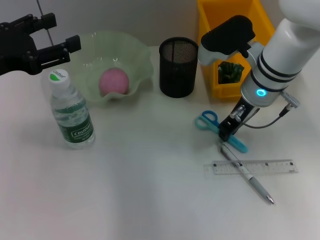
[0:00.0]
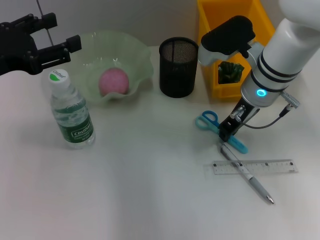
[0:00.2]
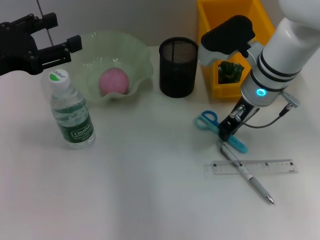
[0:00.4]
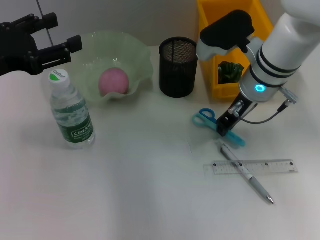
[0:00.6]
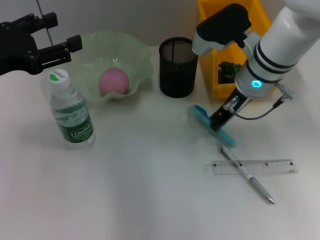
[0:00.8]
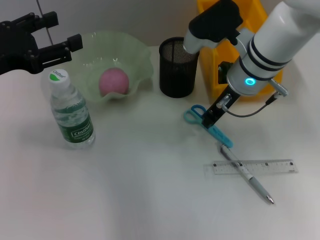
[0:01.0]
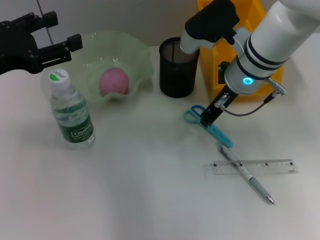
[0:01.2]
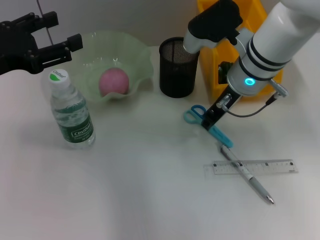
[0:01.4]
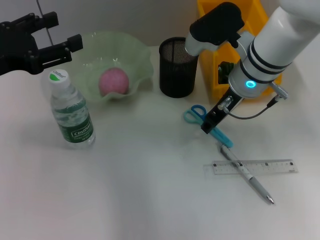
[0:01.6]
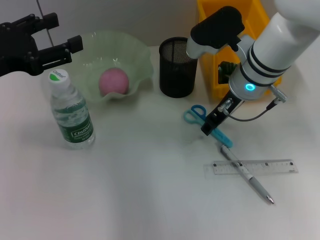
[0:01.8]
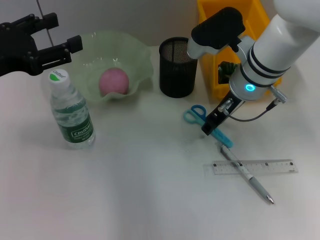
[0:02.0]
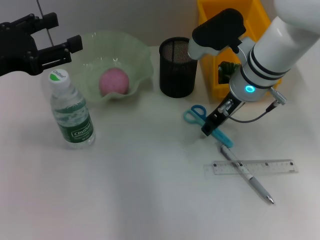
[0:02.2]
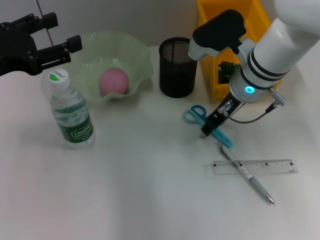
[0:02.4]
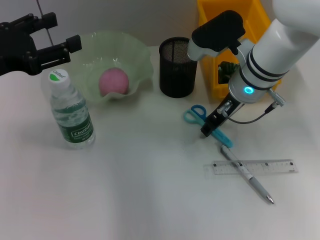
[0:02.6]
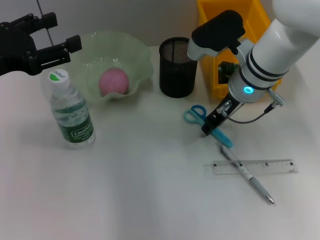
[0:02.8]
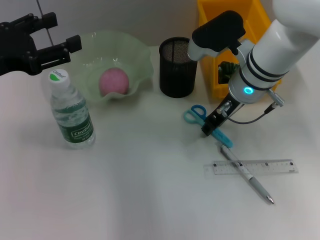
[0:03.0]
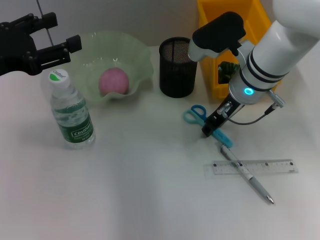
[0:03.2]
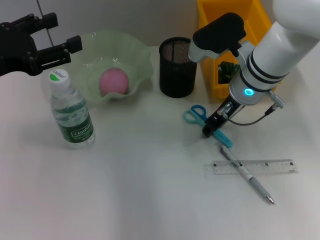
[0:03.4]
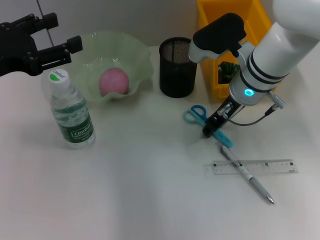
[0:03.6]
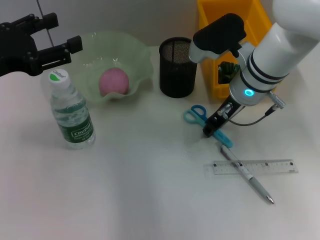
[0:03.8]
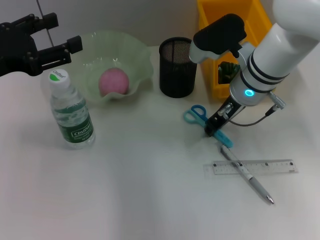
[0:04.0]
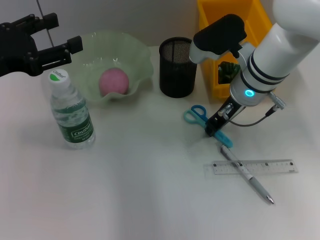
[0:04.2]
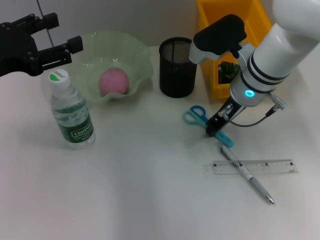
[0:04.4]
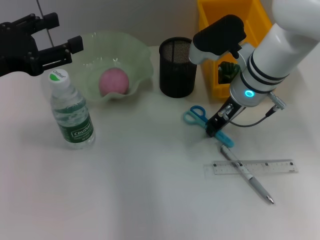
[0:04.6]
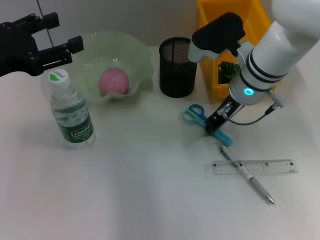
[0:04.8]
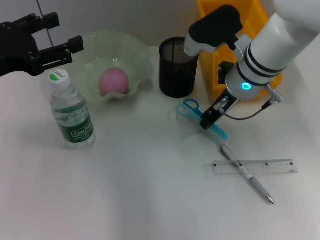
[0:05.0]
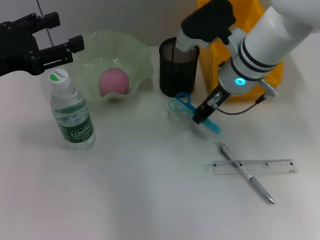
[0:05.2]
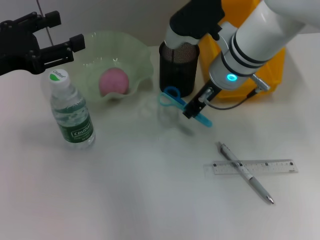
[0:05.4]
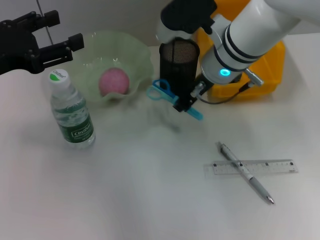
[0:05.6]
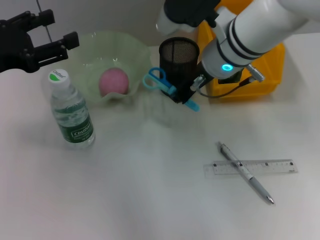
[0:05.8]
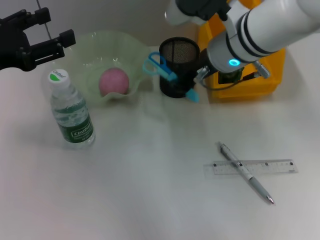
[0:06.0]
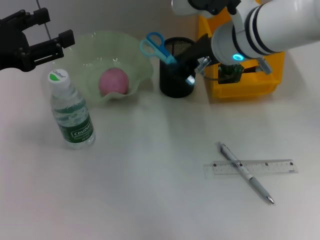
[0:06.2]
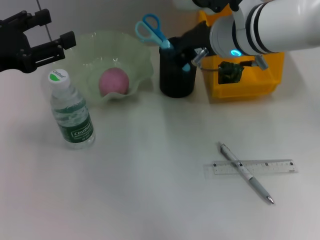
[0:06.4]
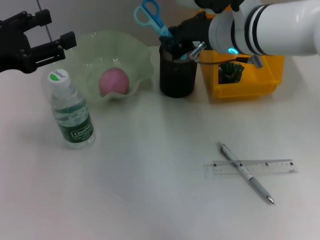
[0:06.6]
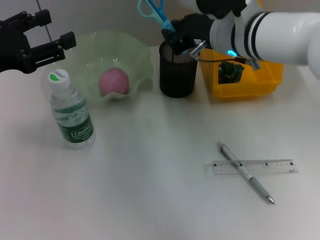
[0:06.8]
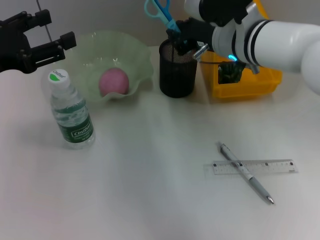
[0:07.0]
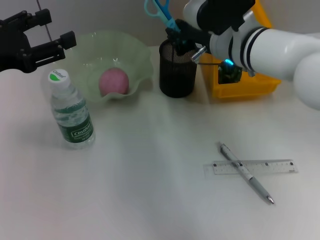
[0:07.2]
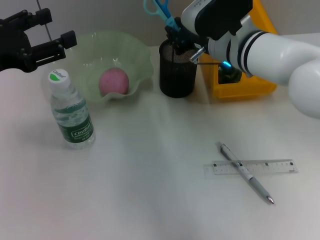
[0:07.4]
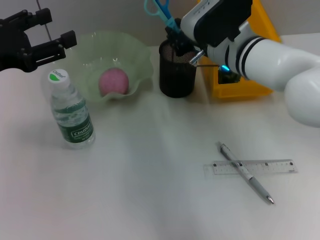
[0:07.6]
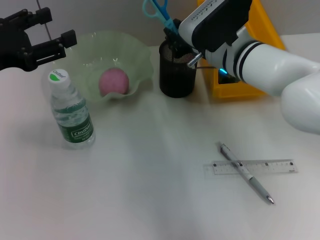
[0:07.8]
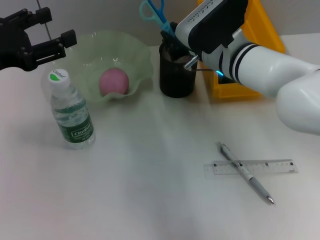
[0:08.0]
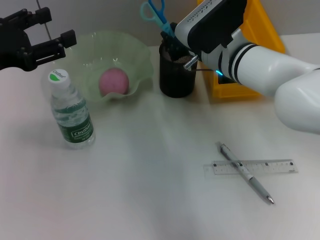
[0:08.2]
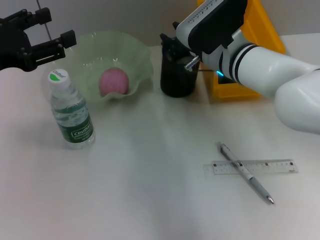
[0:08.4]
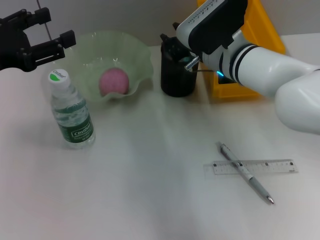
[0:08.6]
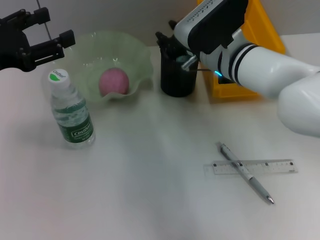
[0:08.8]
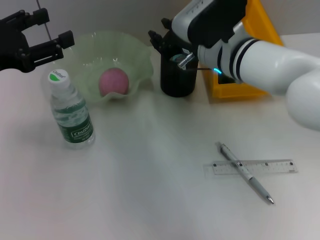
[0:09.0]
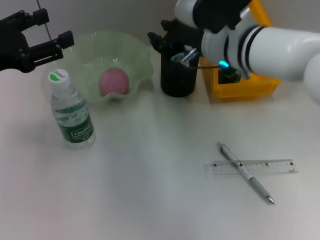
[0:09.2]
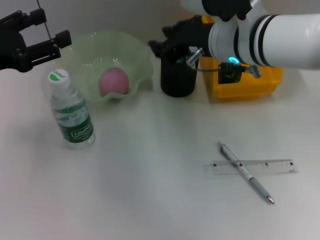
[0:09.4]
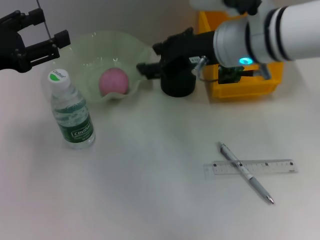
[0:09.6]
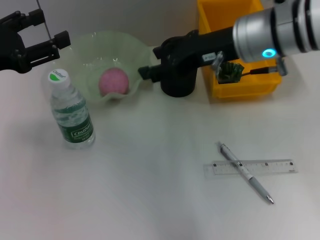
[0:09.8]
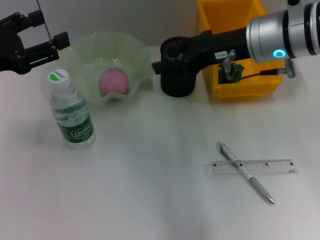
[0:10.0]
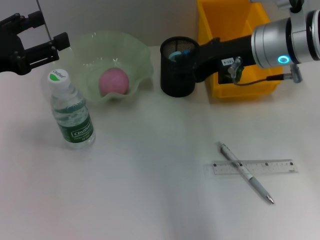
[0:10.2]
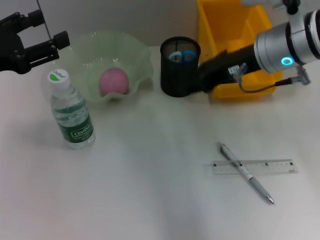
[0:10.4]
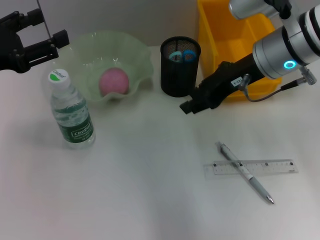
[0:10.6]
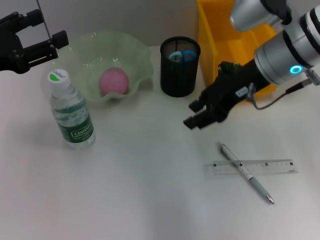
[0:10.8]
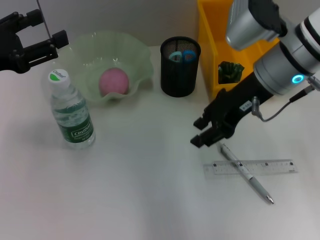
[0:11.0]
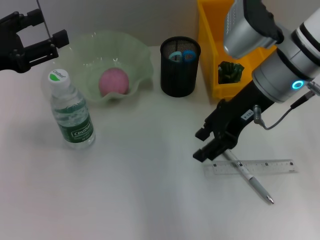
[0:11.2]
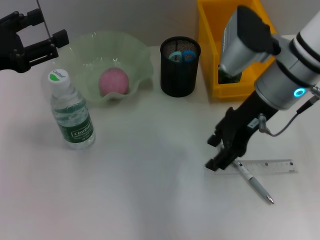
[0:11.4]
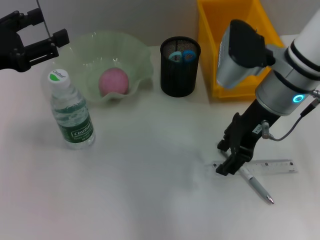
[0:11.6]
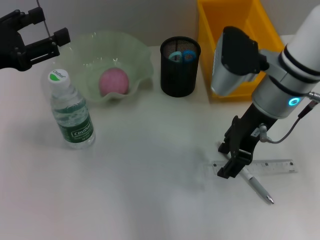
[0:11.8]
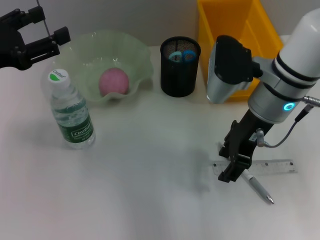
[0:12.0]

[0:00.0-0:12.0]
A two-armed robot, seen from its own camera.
Step, 0:00.0 to 0:04.4: Grab the blue scissors with the right hand.
Step, 0:04.8 to 0:08.6: Place the blue scissors into the pen holder with the right hand.
0:00.0 to 0:03.0: There are only small adjustments of the grippers.
0:03.0 to 0:04.4: Neither gripper changes place.
0:04.4 to 0:06.0: The right gripper moves upward, about 5 cm.
0:06.0 to 0:07.6: The right gripper heads downward, covering some 5 cm.
0:07.6 to 0:09.0: The grippers make only small movements.
0:09.0 to 0:10.4: The right gripper travels to the right by approximately 5 cm.

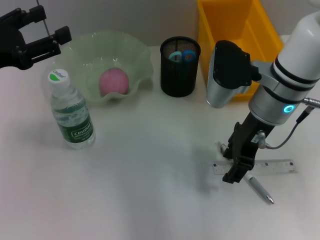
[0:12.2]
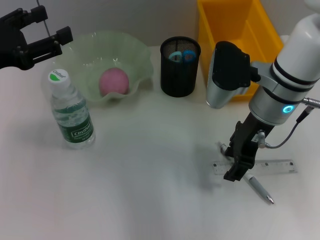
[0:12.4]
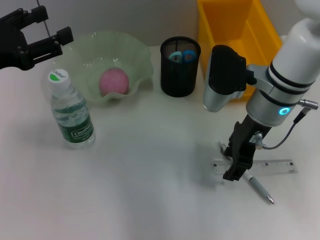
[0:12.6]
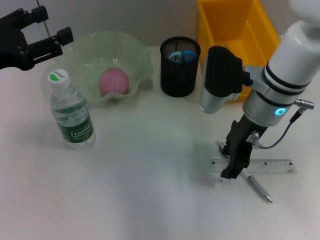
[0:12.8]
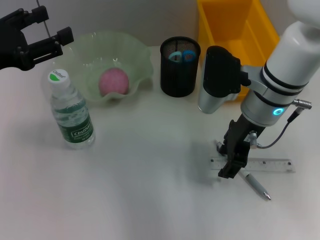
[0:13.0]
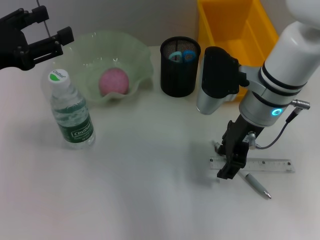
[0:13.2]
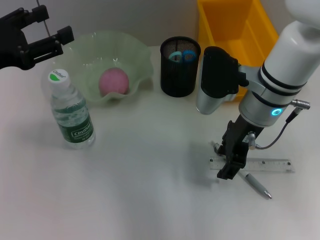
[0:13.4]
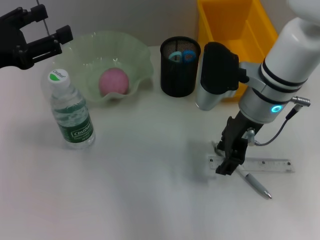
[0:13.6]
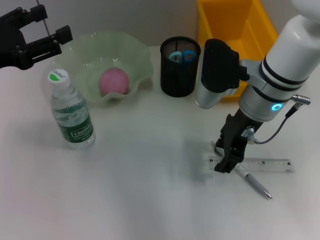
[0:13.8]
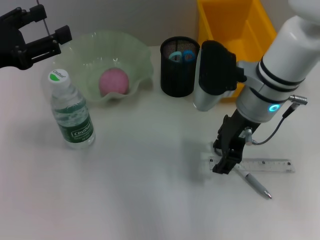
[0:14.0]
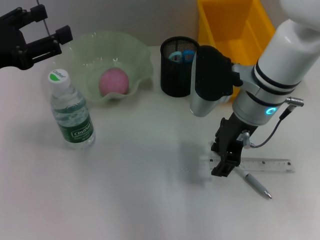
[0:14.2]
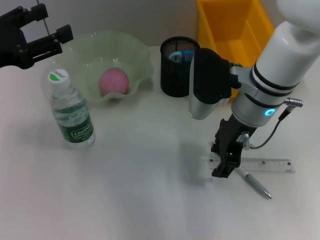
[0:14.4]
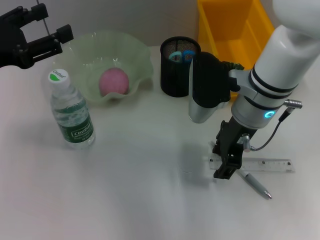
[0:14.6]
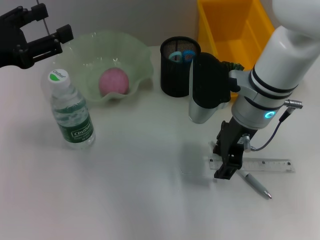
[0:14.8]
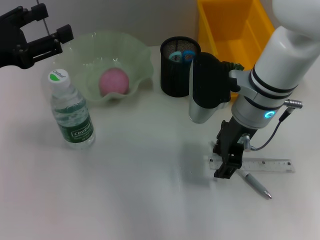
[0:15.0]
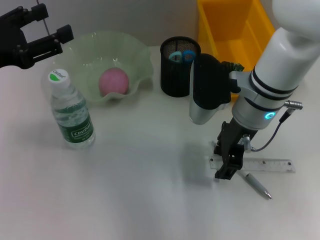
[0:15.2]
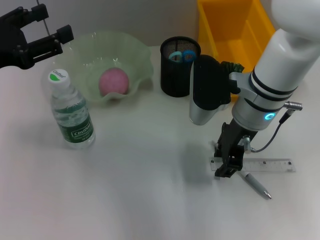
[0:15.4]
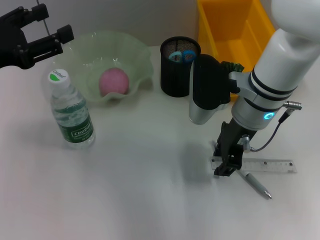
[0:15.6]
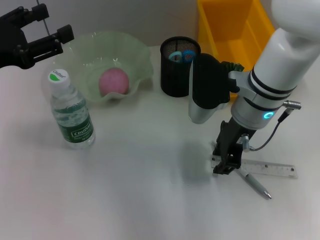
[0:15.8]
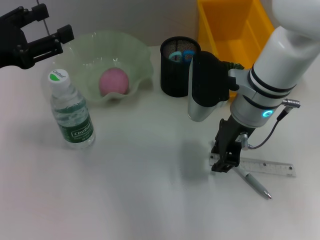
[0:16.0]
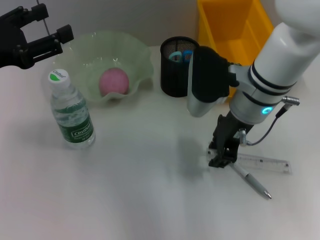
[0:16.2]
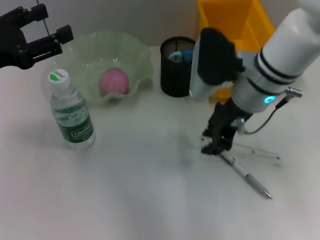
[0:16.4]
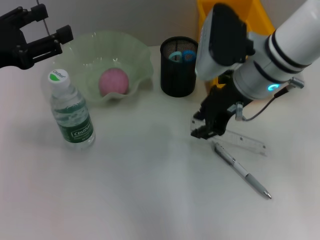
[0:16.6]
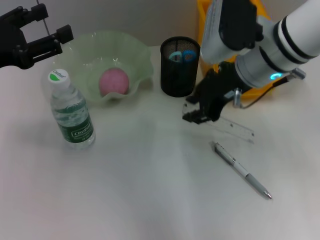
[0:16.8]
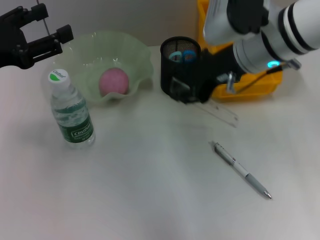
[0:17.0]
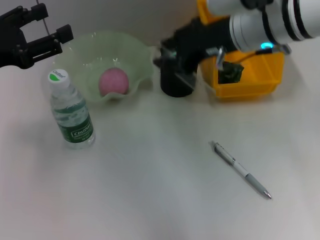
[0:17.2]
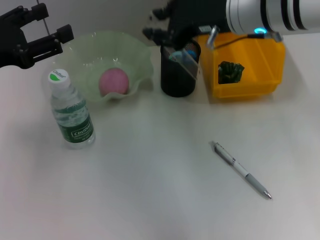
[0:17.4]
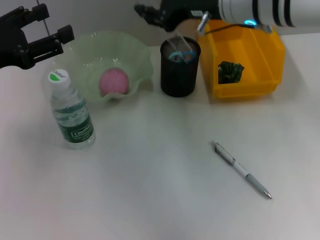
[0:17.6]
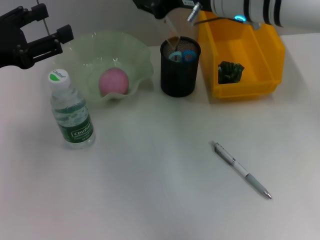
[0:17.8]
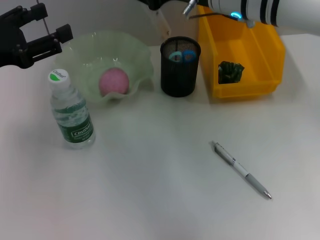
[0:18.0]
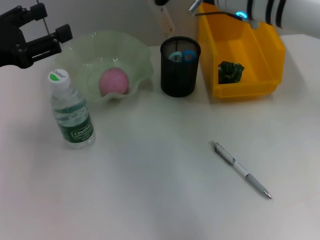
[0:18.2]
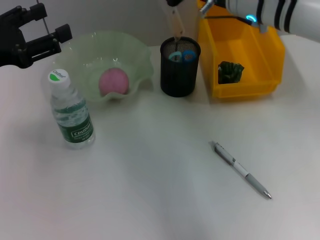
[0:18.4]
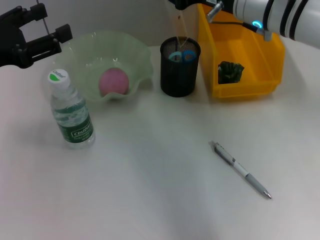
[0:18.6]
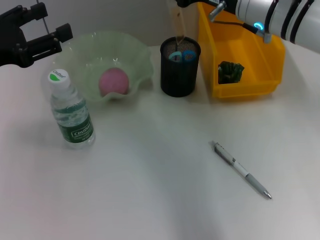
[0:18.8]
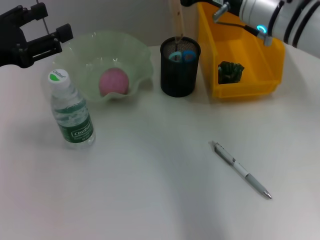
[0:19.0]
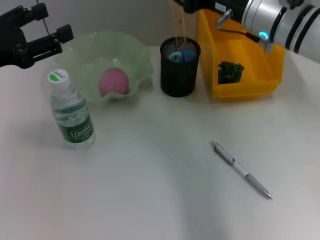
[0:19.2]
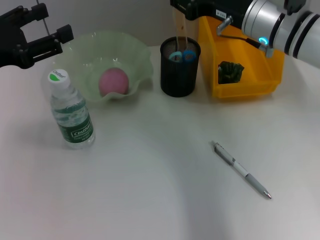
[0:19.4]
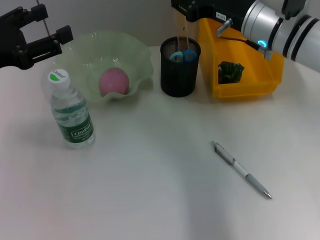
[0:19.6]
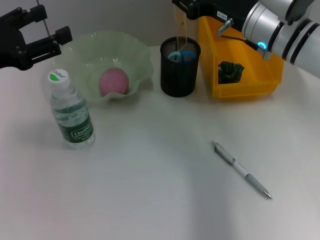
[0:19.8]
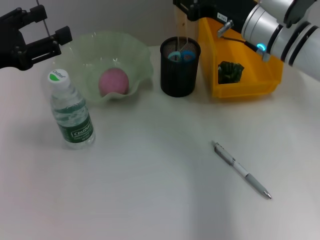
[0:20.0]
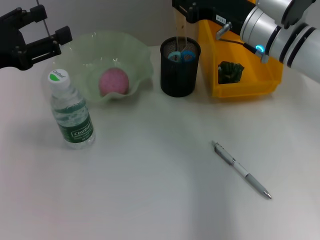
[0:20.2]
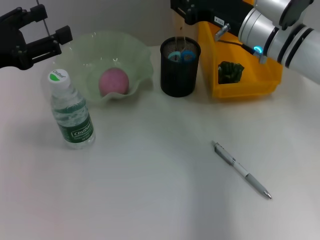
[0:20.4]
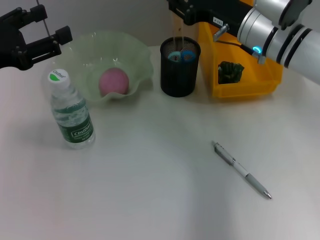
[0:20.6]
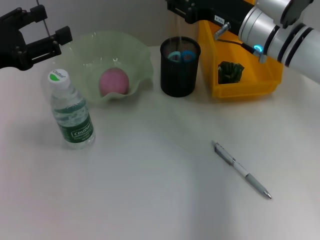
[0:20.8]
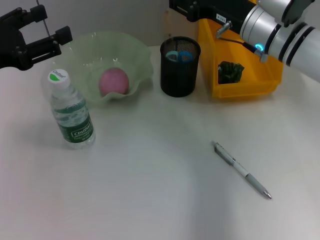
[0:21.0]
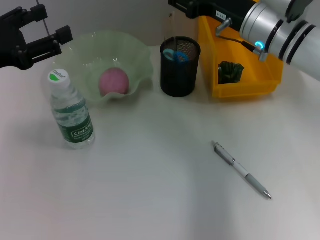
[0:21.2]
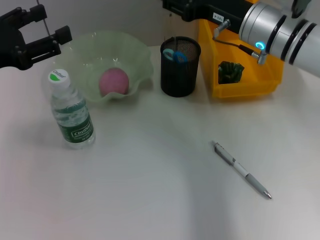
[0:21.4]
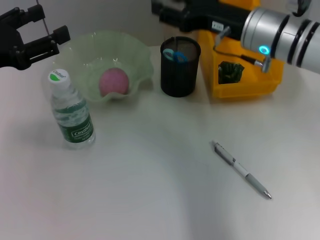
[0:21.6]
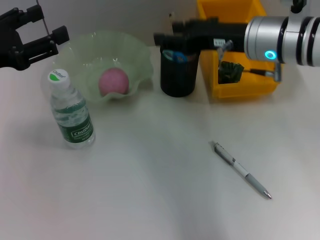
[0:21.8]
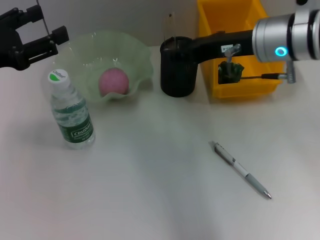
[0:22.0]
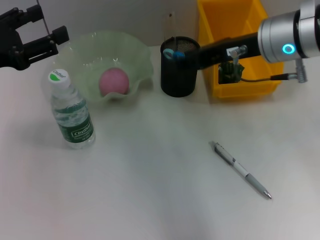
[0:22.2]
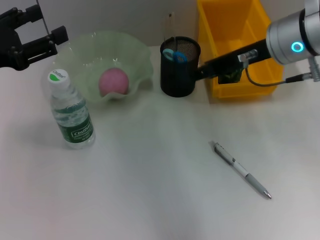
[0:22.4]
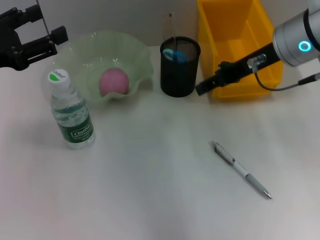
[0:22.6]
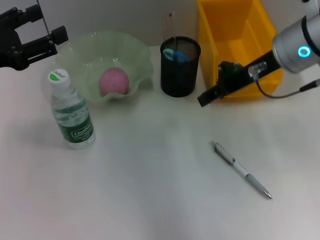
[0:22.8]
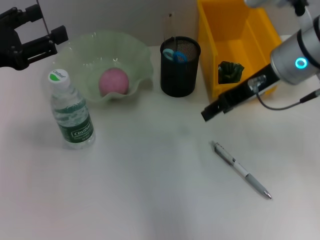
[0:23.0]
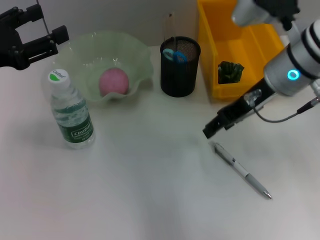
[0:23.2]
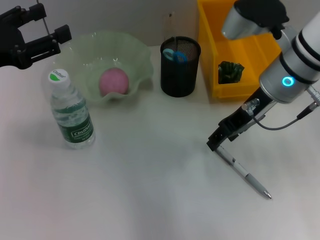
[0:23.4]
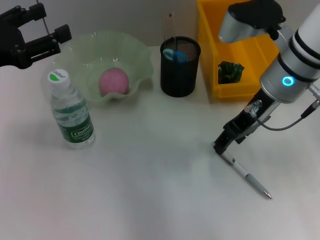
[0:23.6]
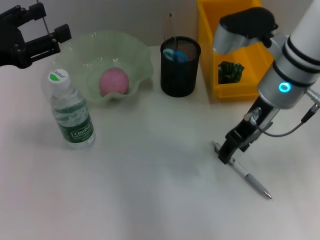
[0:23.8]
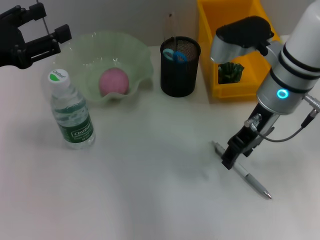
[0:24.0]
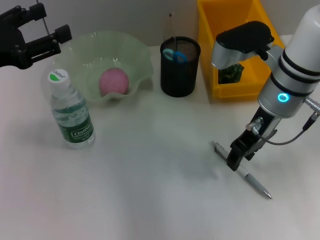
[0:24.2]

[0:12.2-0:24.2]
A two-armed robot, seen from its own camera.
Step, 0:12.2 to 0:15.4: Grab the ruler with the right hand.
Step, 0:15.8 to 0:21.0: Place the ruler into the pen holder with the right hand.
0:12.2 to 0:16.6: The grippers stay close to where they were, moving slightly.
0:16.6 to 0:18.2: The right gripper shifts approximately 5 cm upward.
0:18.2 to 0:19.8: The right gripper travels downward by roughly 5 cm.
0:19.8 to 0:21.2: The grippers make only small movements.
0:21.2 to 0:22.6: The right gripper goes approximately 5 cm upward.
0:22.6 to 0:24.2: The right gripper goes roughly 5 cm downward.
